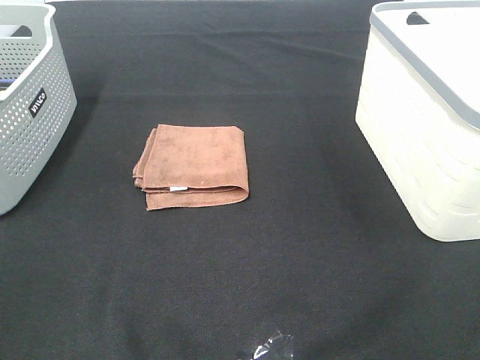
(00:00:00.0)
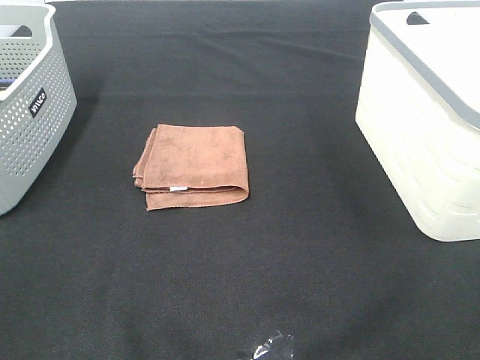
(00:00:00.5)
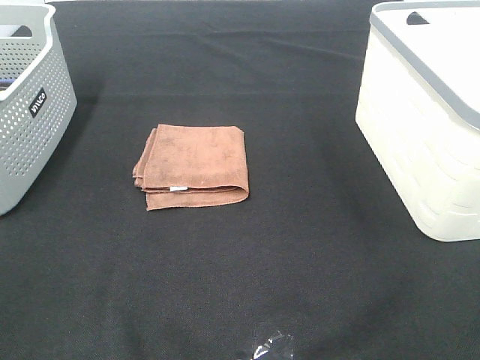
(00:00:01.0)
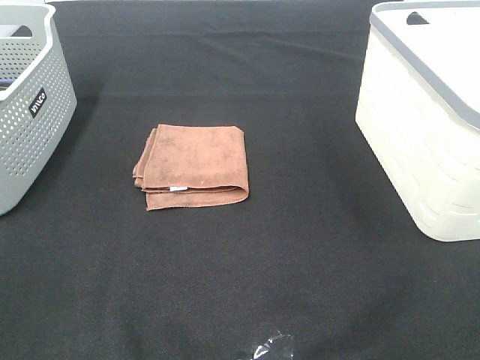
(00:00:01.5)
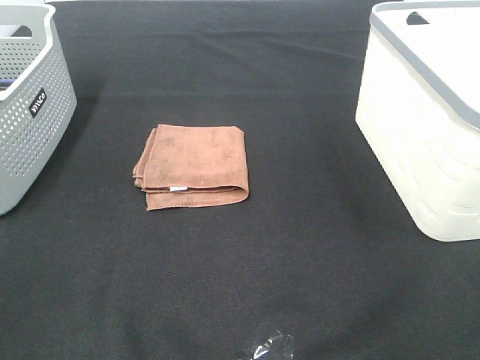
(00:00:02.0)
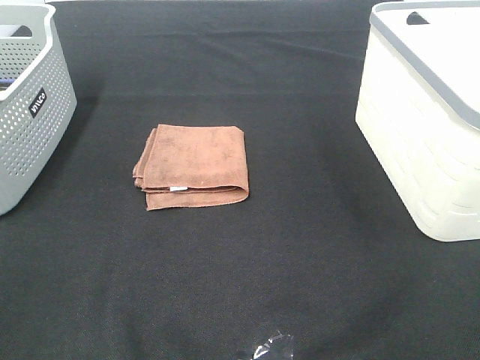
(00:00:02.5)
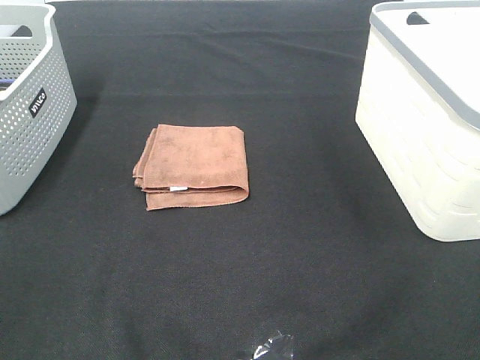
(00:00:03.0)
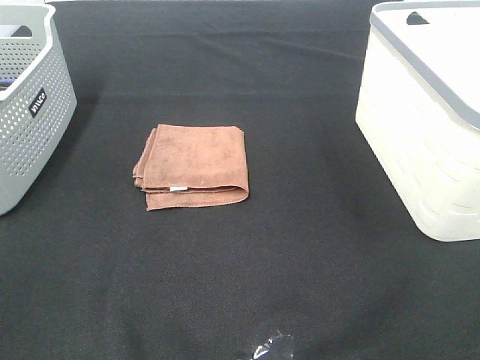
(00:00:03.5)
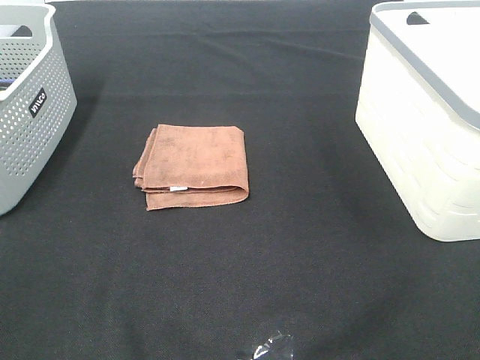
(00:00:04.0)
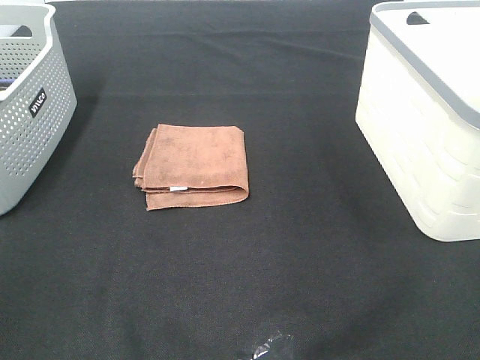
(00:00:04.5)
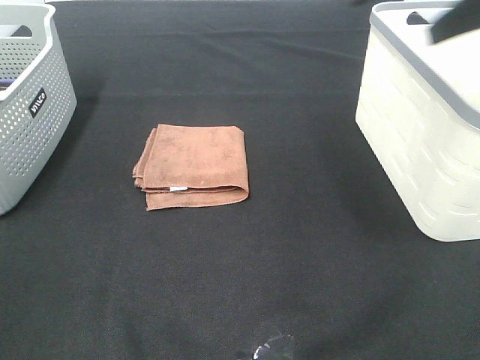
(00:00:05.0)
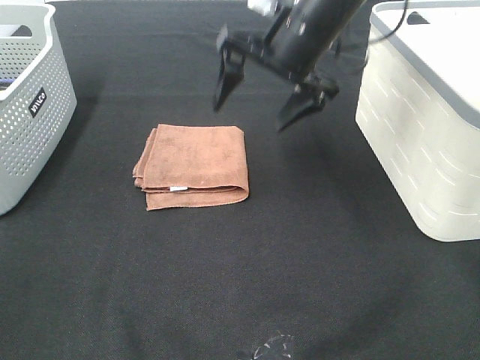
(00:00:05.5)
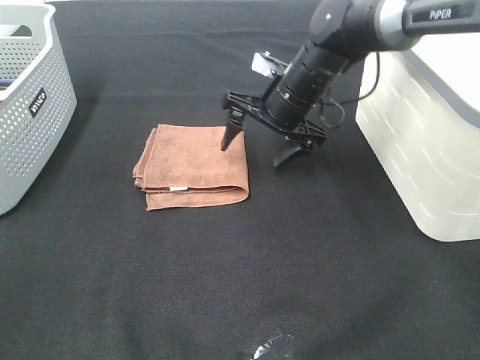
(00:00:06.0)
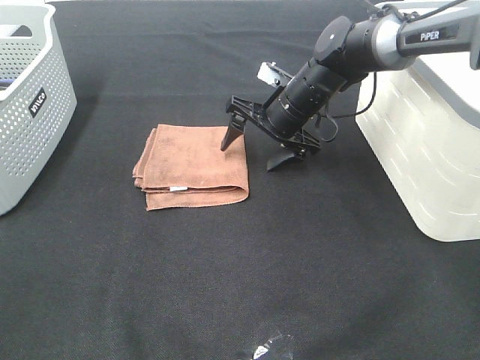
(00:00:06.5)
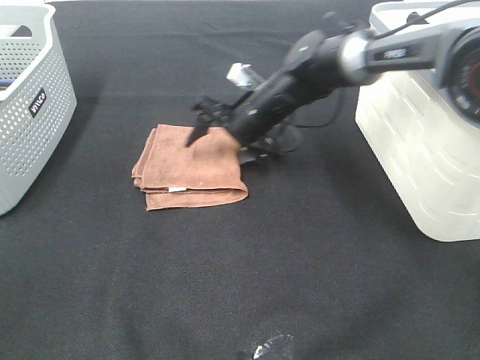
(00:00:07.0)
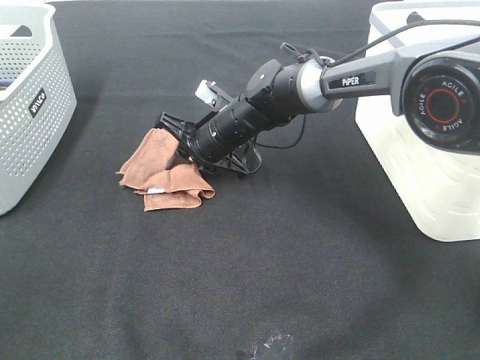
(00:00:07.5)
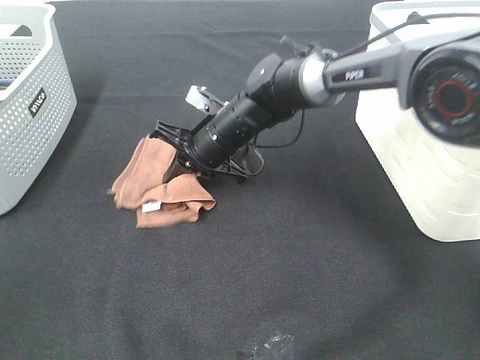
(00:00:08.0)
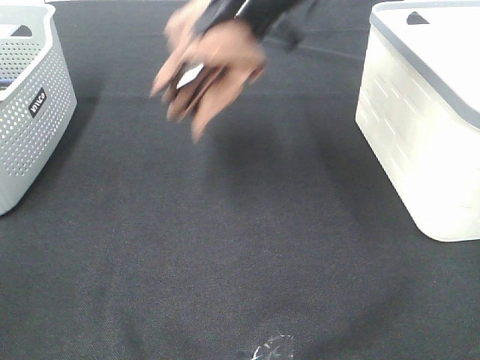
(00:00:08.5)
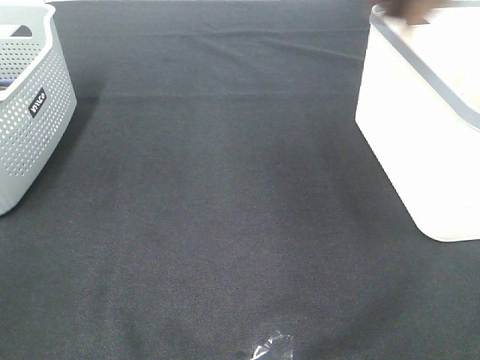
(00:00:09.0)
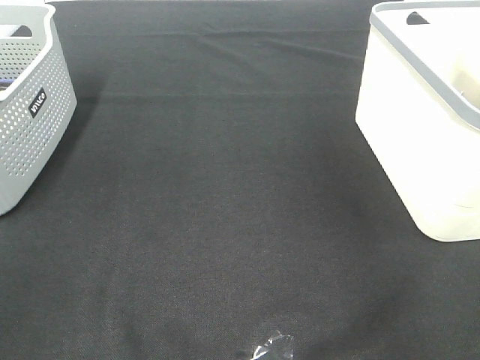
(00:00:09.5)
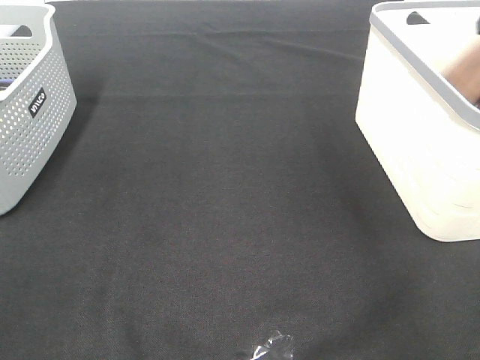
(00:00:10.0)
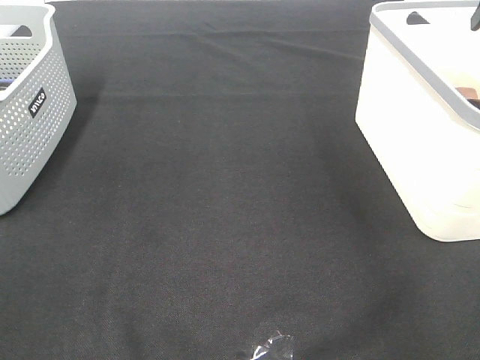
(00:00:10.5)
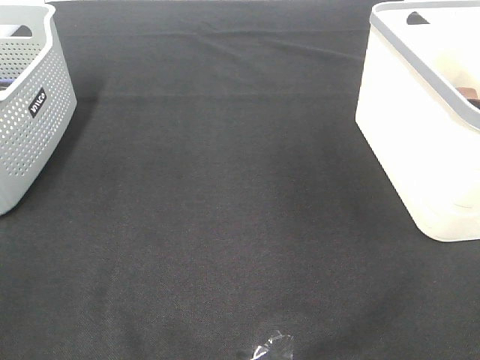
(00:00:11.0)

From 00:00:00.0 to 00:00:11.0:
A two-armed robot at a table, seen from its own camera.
Step, from 00:00:00.0 to 00:00:07.5: Right hand: grab the folded brown towel.
Step, from 00:00:08.0 to 00:00:10.0: Right hand: place the brown towel in right basket.
From 00:00:00.0 to 00:00:03.5: The two grippers keep their place.
From 00:00:03.5 to 00:00:05.5: The right gripper moves forward and to the left, approximately 50 cm.
From 00:00:05.5 to 00:00:07.5: The right gripper moves downward and to the left, some 20 cm, and closes up.
From 00:00:07.5 to 00:00:09.0: The right gripper travels upward and to the right by roughly 40 cm.
From 00:00:09.0 to 00:00:11.0: The right gripper opens its fingers.

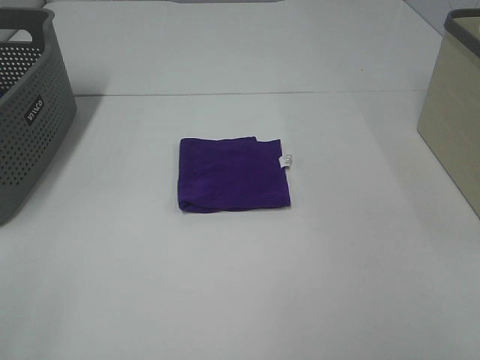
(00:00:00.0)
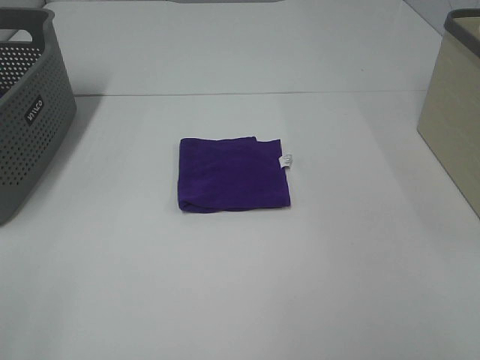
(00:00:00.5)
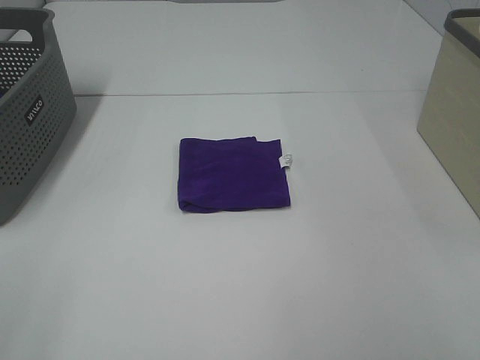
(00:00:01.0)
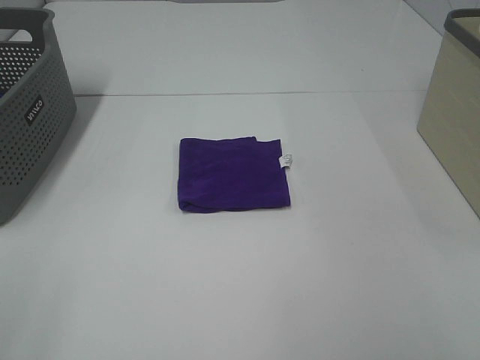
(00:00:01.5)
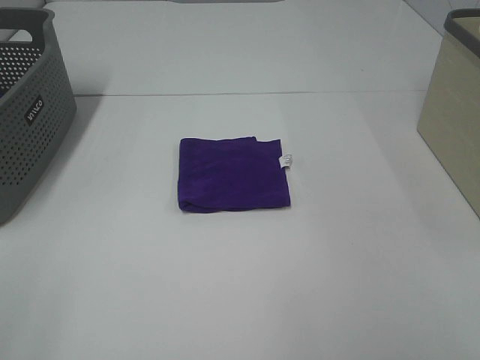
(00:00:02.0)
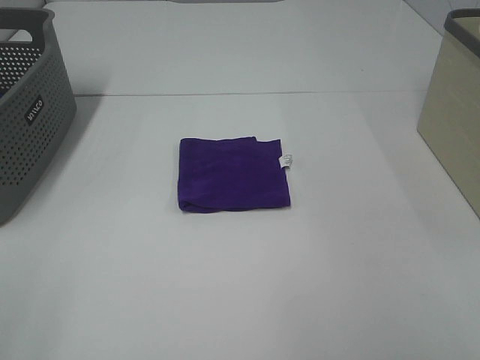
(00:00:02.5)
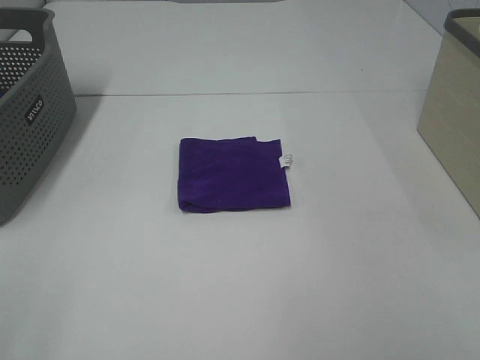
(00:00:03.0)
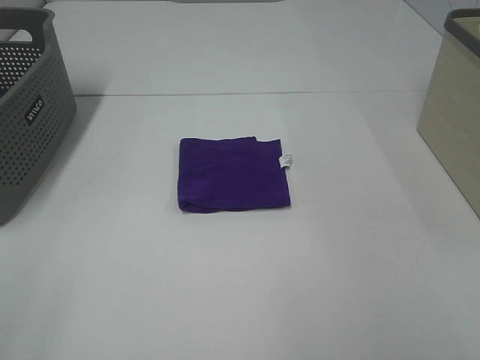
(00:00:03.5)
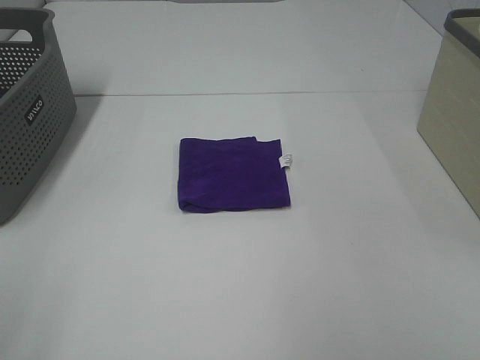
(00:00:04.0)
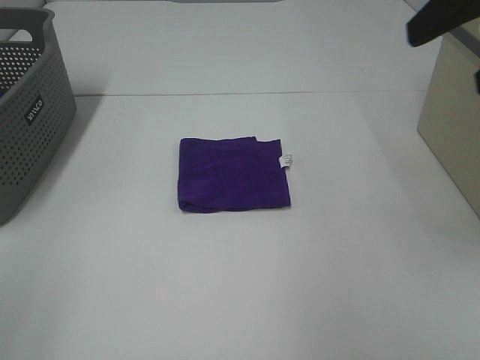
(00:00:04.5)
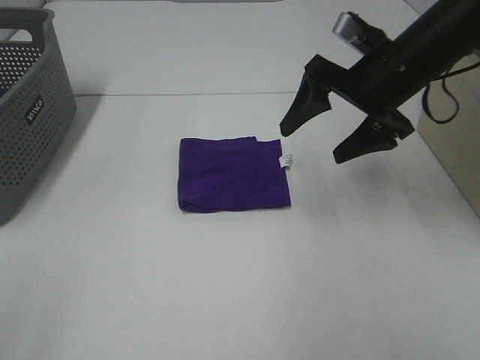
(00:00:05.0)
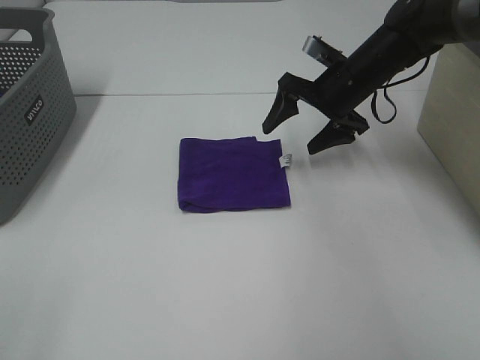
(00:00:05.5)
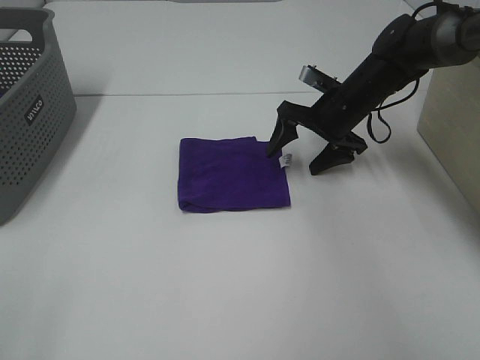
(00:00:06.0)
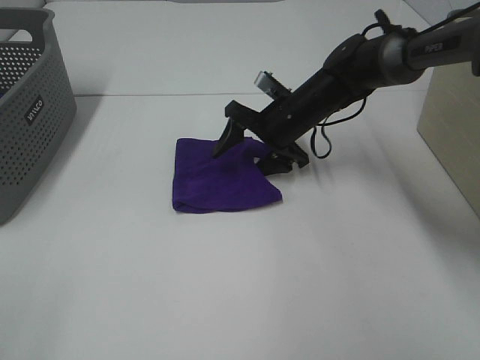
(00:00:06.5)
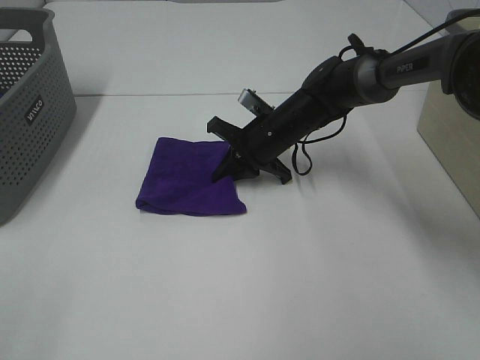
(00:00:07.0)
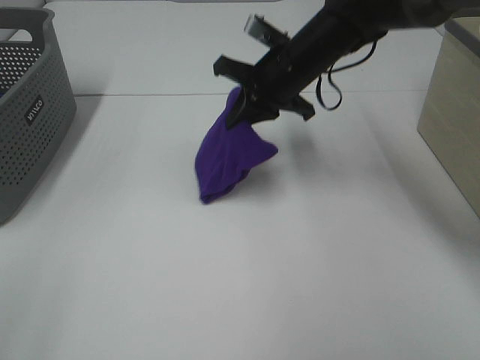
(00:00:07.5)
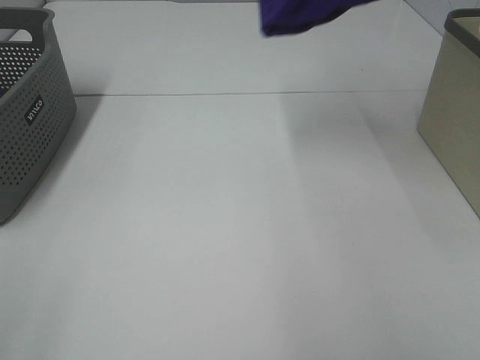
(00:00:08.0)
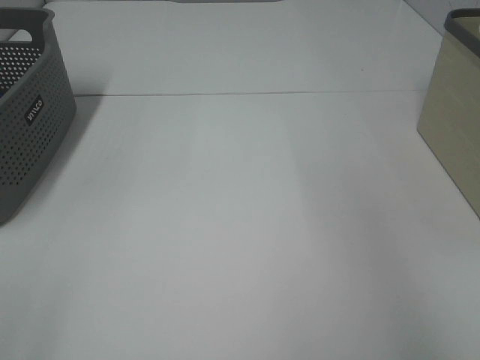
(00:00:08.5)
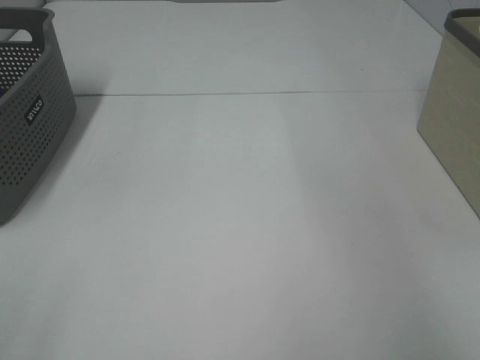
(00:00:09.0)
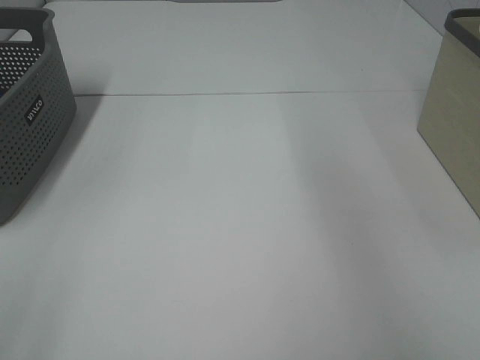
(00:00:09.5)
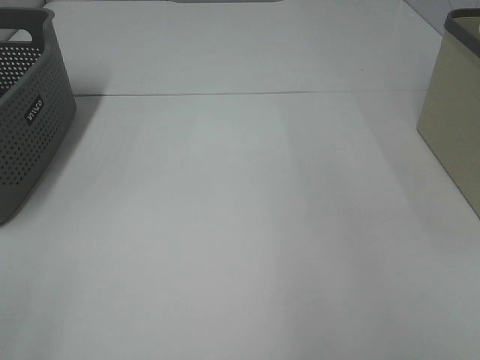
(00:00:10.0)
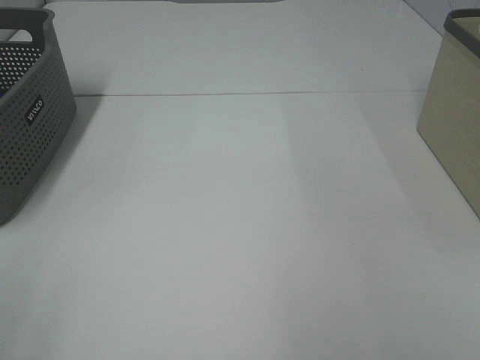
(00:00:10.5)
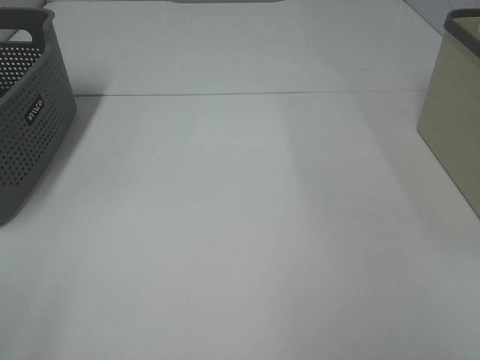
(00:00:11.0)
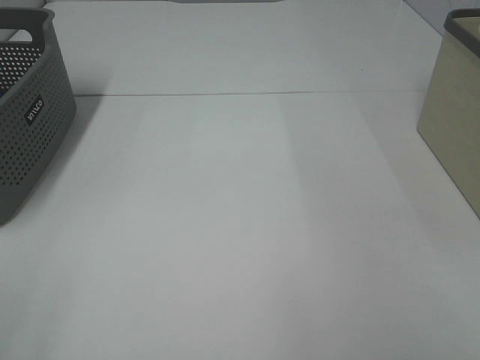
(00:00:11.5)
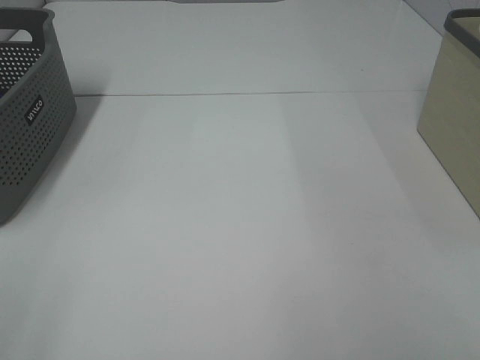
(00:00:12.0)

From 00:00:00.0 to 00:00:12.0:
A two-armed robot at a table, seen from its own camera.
Step, from 00:00:00.0 to 00:00:06.5: Right hand: grab the folded purple towel.
Step, from 00:00:07.0 to 00:00:09.0: Right hand: place the purple towel in right basket.
From 00:00:00.0 to 00:00:02.0: The two grippers keep their place.
From 00:00:04.0 to 00:00:06.0: The right gripper is displaced forward and downward by about 50 cm.
From 00:00:06.0 to 00:00:08.0: The right gripper travels upward by approximately 30 cm, and closes.
From 00:00:08.0 to 00:00:10.0: The right gripper heads backward and upward, covering some 10 cm, goes to the right and returns, approximately 20 cm each way, and opens its fingers.
